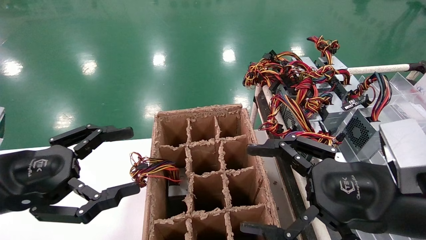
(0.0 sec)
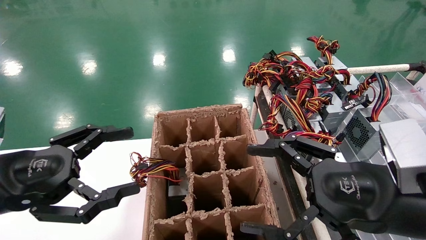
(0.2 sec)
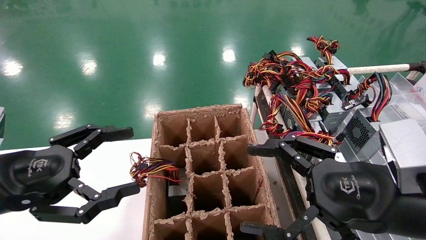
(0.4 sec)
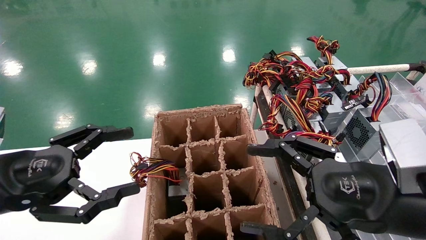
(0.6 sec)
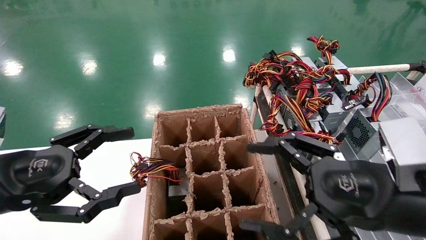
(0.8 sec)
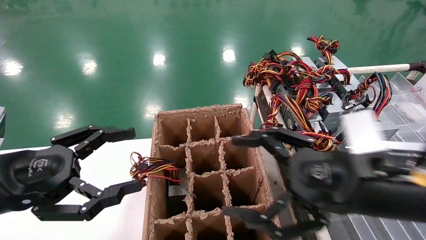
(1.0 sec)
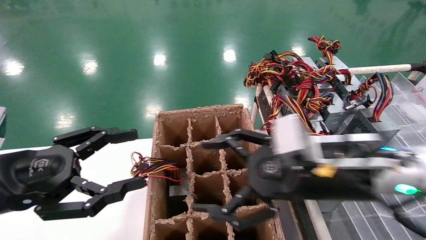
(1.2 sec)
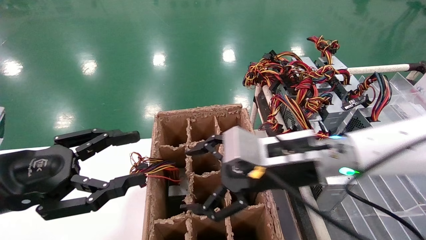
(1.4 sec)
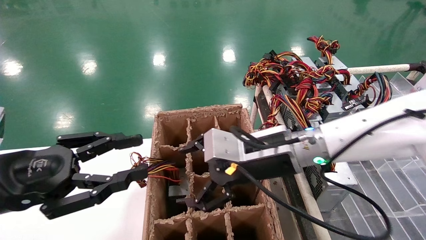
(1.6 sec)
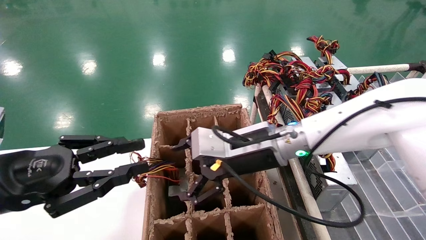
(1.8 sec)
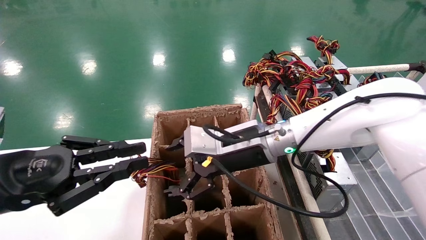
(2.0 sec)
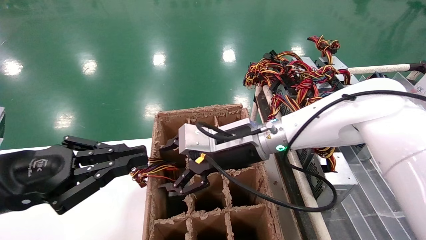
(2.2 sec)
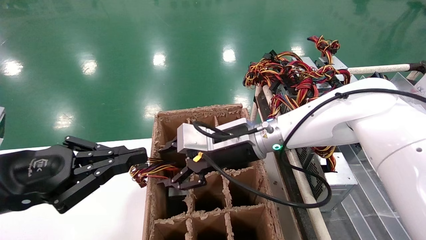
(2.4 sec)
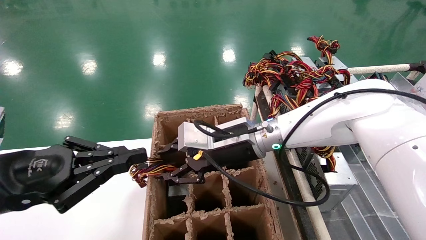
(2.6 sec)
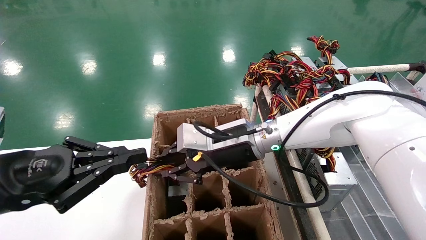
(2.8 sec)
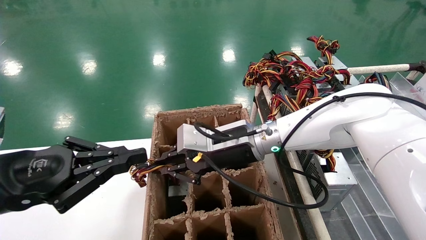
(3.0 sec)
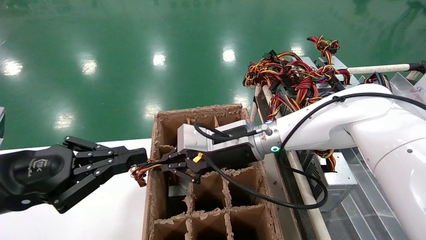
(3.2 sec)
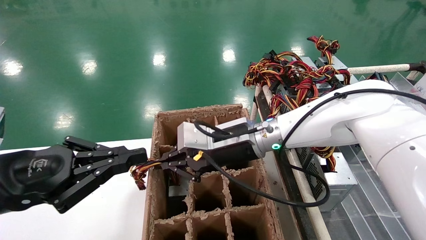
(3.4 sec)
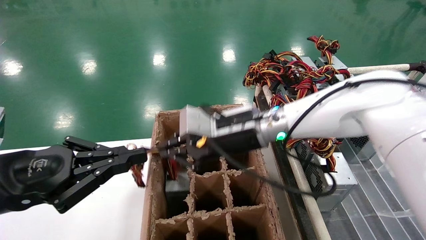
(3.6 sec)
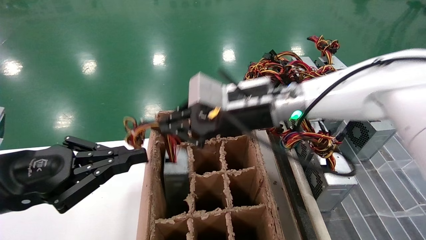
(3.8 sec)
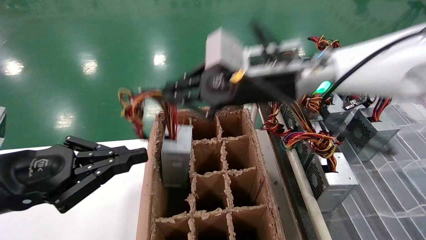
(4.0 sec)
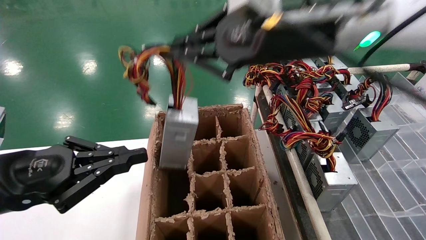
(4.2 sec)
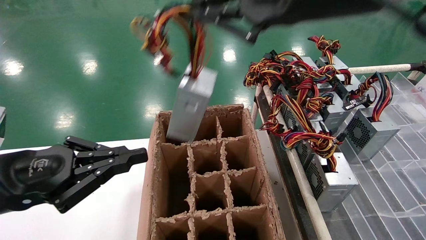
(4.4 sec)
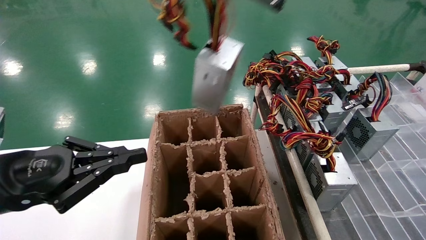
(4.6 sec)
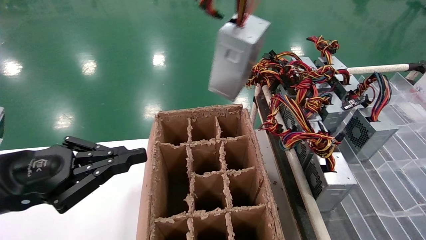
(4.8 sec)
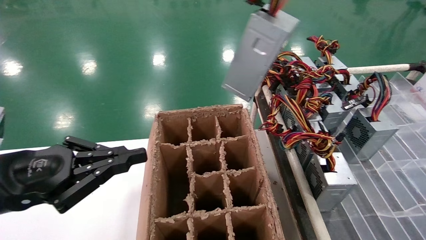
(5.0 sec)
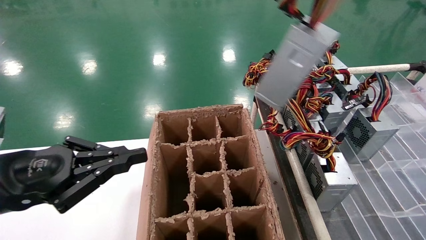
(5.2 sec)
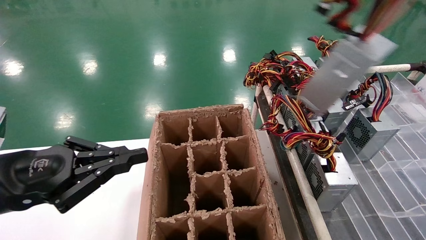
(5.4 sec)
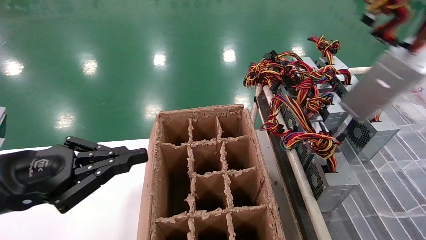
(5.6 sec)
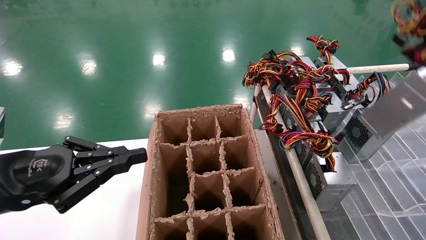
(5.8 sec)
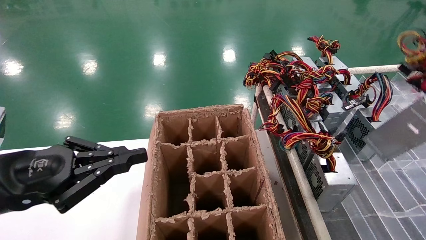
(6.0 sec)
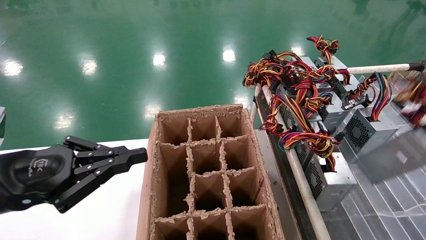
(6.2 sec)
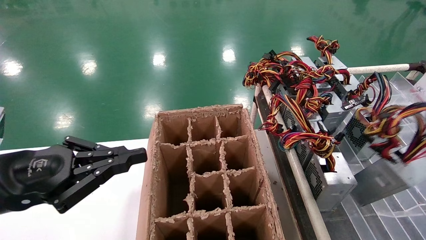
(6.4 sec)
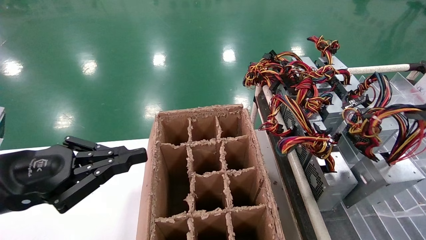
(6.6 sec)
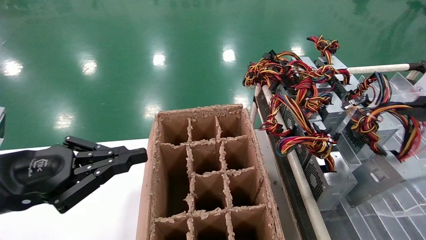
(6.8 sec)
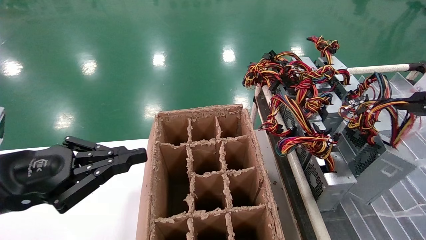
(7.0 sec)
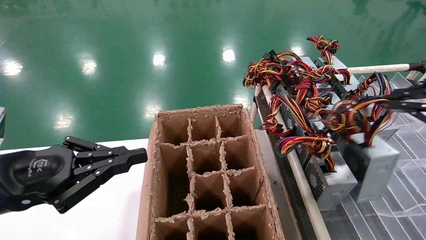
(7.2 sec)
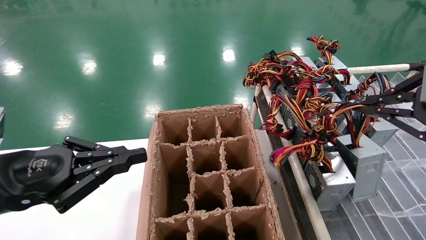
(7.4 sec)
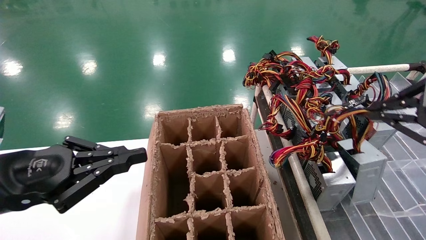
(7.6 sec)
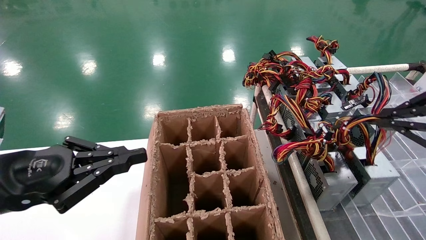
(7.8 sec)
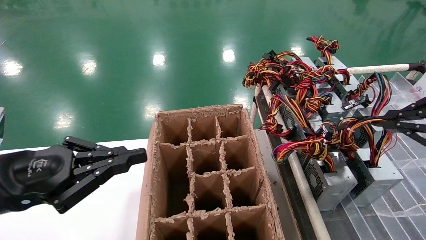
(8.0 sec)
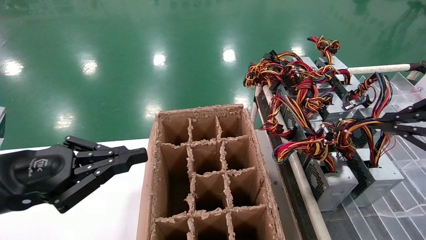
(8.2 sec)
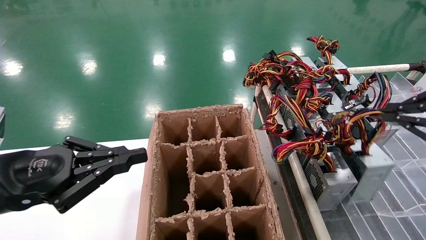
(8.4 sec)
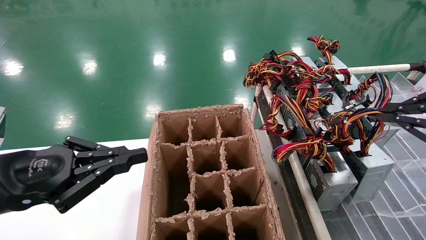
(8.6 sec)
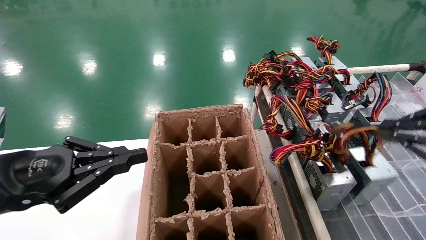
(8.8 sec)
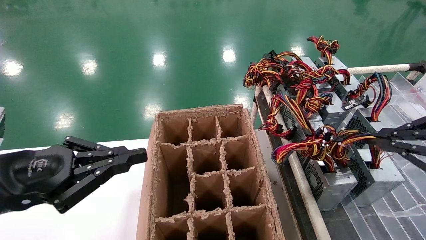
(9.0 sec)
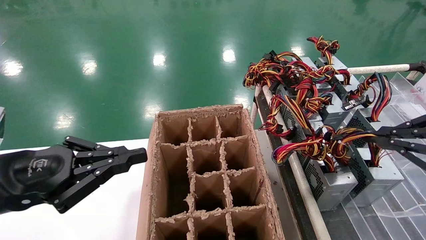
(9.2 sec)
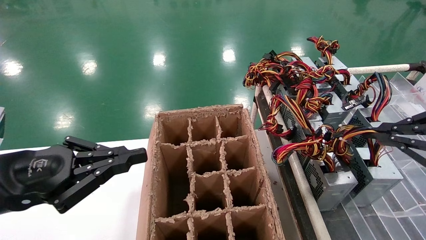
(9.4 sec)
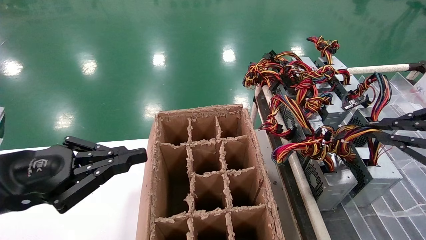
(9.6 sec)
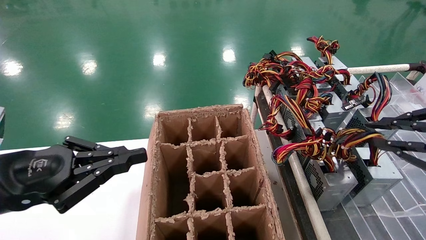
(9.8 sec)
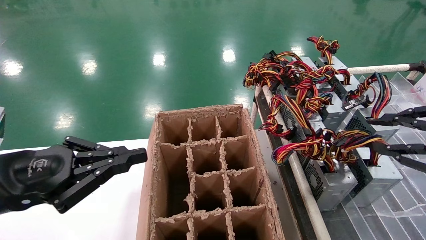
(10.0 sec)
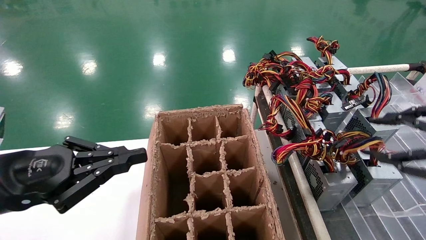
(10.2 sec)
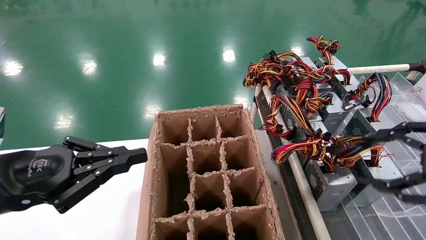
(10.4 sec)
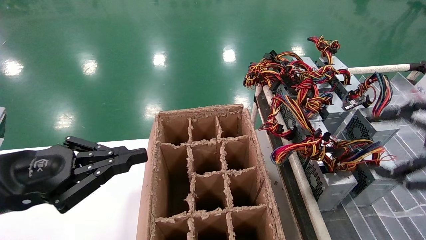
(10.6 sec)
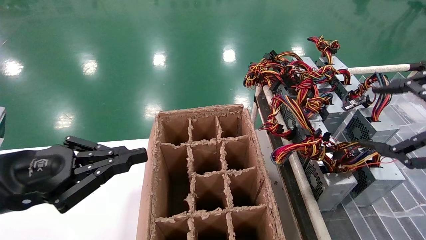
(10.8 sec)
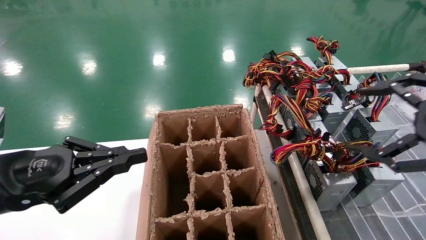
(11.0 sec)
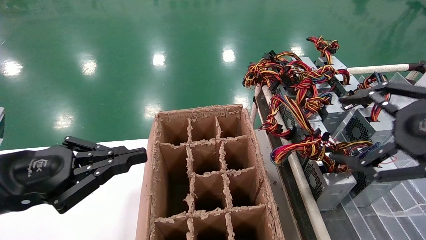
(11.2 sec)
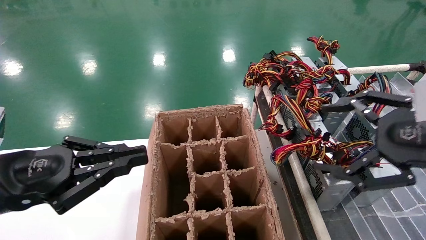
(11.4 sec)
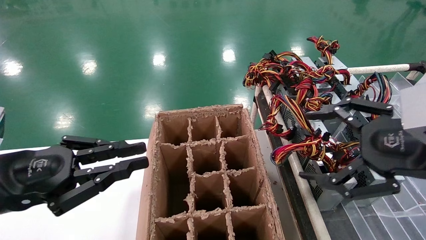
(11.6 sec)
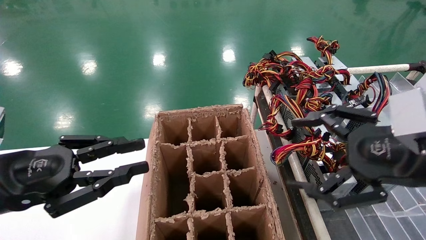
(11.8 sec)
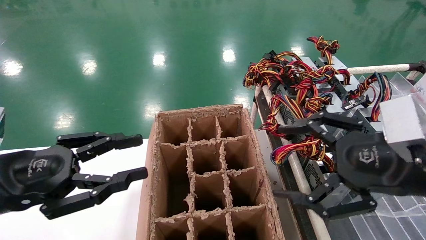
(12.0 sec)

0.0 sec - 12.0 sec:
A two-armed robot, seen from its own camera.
Step, 1.2 sec - 3.4 sec: Grab the main unit power supply from the containment box.
Step, 3.6 sec - 10.6 sec: Place the main unit power supply in the designated area.
0.0 sec - 1.6 sec: The right gripper travels forward and to the left by approximately 20 cm, while the left gripper closes its fingers.
1.6 sec - 3.0 sec: The left gripper closes. Meanwhile the right gripper moves forward and to the left, some 10 cm, and closes its fingers.
3.0 sec - 4.4 sec: The right gripper goes approximately 25 cm upward and backward.
4.4 sec - 6.0 sec: The right gripper is displaced to the right and backward by roughly 35 cm.
6.0 sec - 7.6 sec: The right gripper is displaced forward and downward by roughly 15 cm.
7.6 sec - 9.0 sec: The grippers move only a little.
9.0 sec - 10.4 sec: The right gripper opens its fingers.
10.4 sec - 12.0 sec: The left gripper opens up; the right gripper is displaced to the left by about 10 cm, and opens.

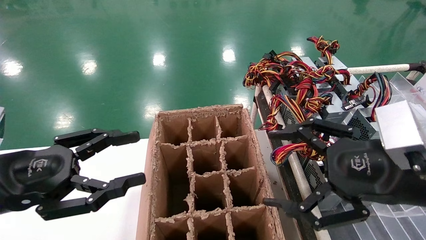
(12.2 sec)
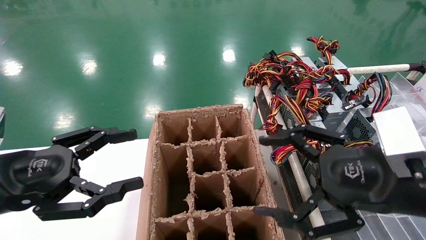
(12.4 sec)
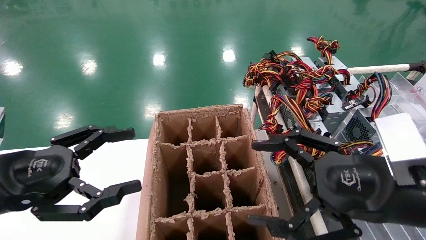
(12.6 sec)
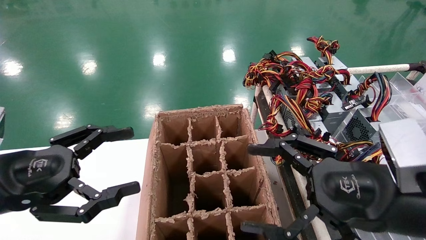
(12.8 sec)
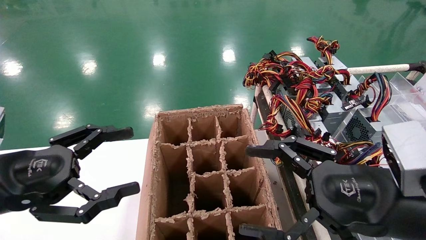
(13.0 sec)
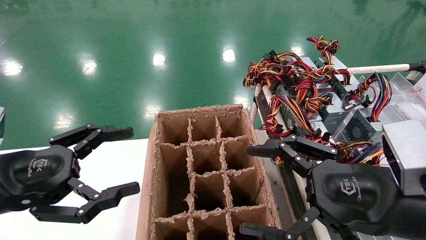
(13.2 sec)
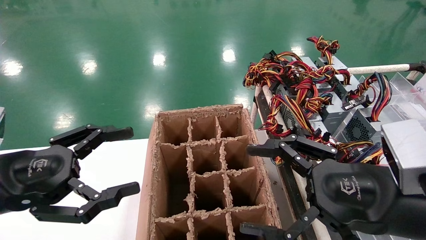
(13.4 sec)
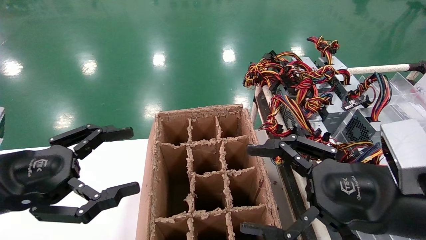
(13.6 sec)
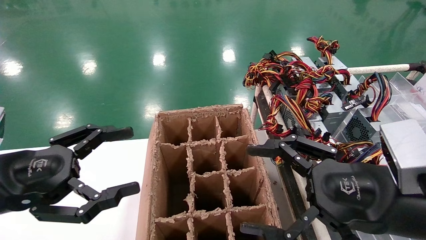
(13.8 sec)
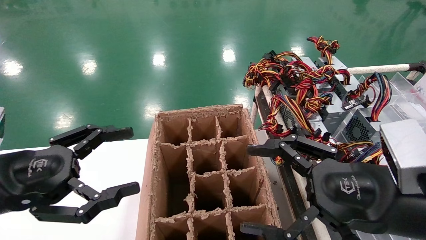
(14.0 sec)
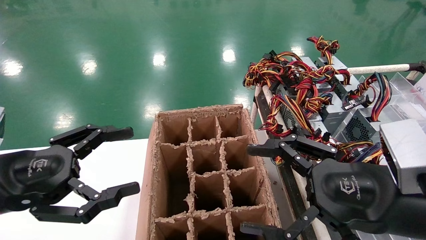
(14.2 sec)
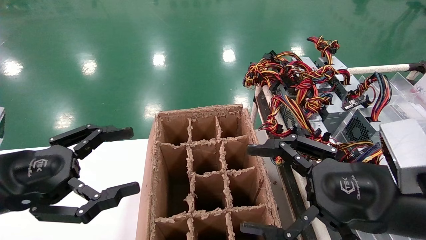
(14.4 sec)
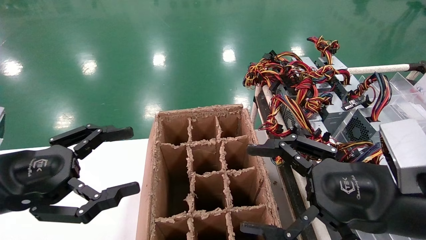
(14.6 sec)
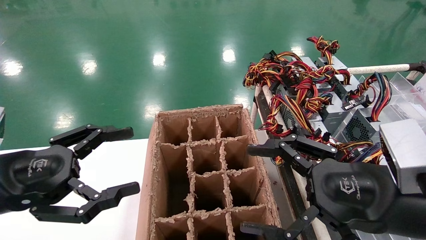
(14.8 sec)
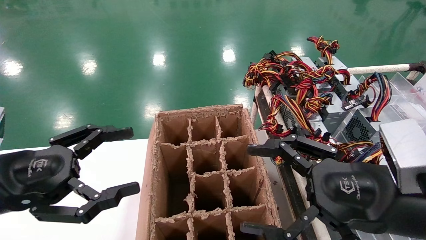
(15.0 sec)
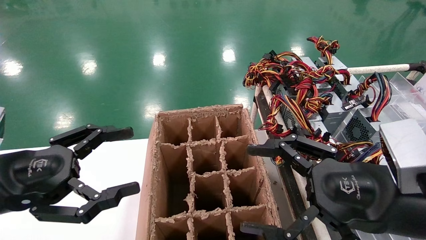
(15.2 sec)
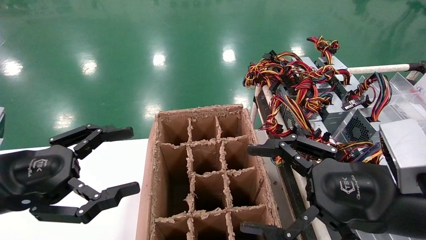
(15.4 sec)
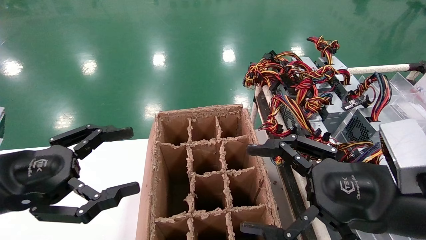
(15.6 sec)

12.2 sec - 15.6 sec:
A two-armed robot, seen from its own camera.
12.2 sec - 13.8 sec: The left gripper opens its fingers.
13.8 sec - 15.6 sec: Both grippers stay put.
